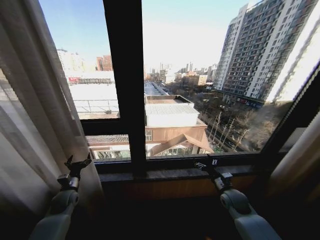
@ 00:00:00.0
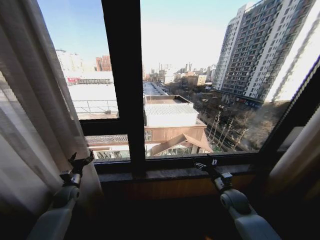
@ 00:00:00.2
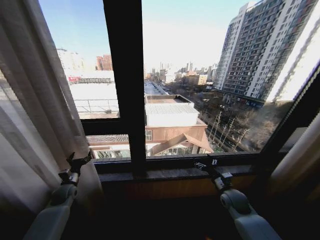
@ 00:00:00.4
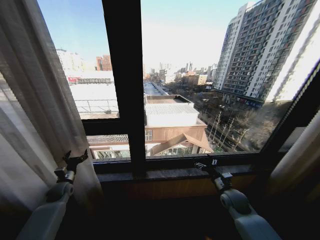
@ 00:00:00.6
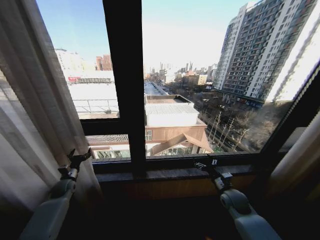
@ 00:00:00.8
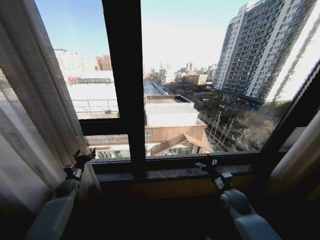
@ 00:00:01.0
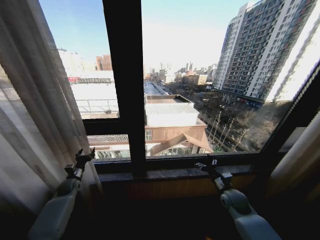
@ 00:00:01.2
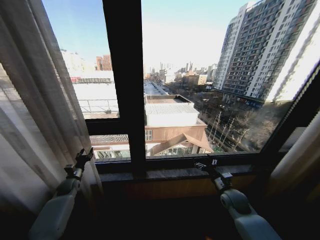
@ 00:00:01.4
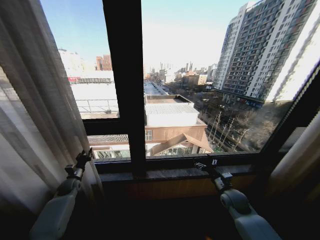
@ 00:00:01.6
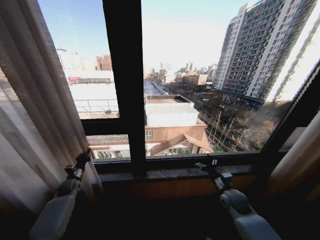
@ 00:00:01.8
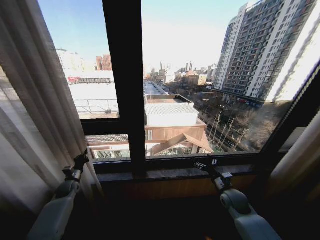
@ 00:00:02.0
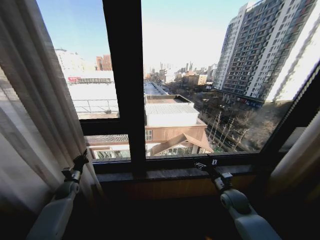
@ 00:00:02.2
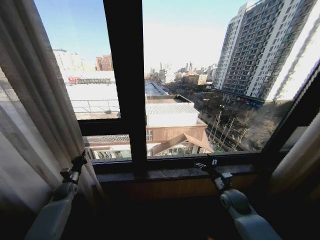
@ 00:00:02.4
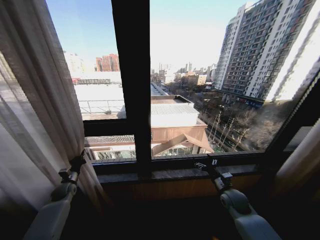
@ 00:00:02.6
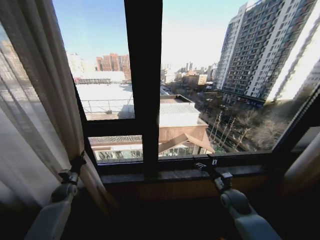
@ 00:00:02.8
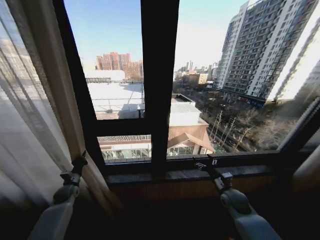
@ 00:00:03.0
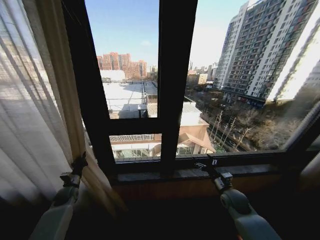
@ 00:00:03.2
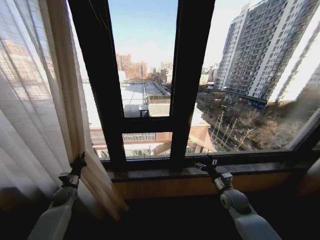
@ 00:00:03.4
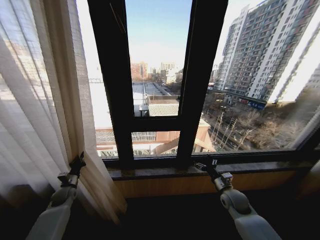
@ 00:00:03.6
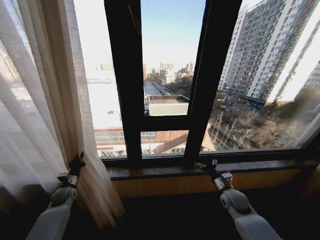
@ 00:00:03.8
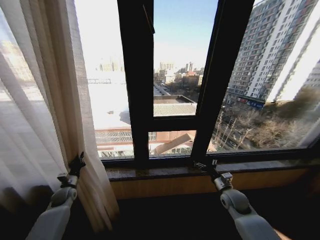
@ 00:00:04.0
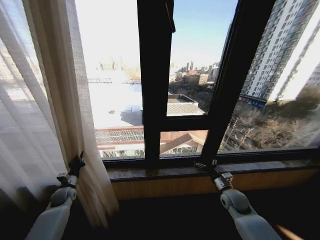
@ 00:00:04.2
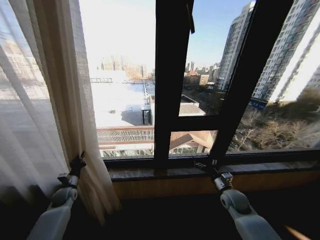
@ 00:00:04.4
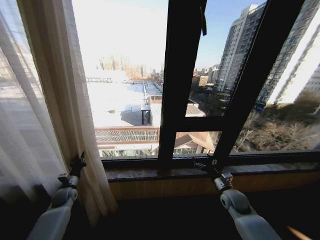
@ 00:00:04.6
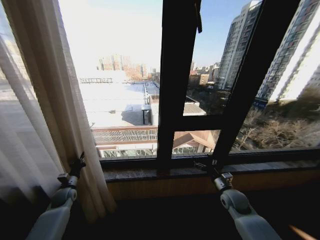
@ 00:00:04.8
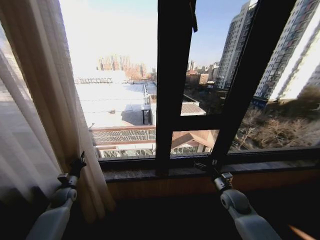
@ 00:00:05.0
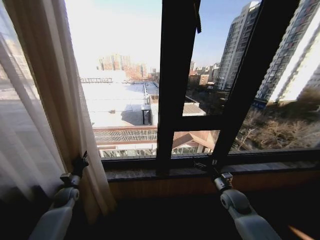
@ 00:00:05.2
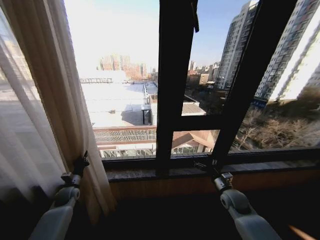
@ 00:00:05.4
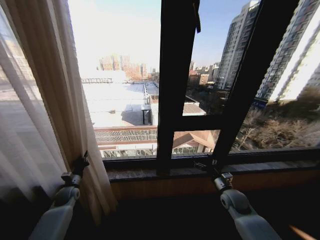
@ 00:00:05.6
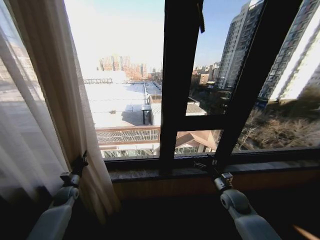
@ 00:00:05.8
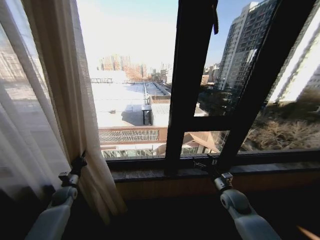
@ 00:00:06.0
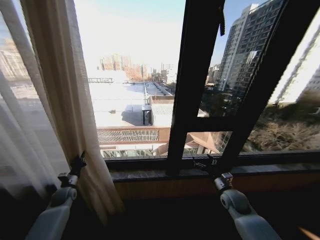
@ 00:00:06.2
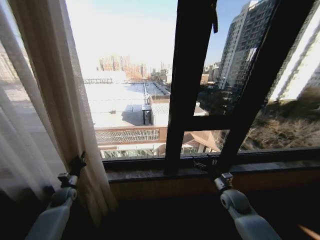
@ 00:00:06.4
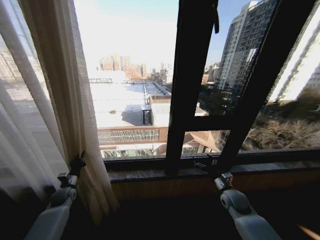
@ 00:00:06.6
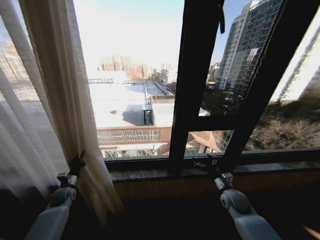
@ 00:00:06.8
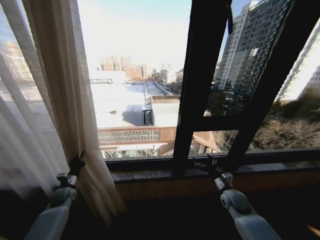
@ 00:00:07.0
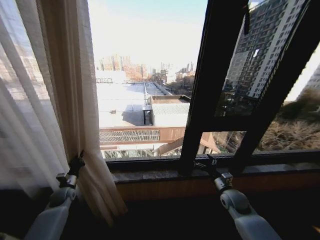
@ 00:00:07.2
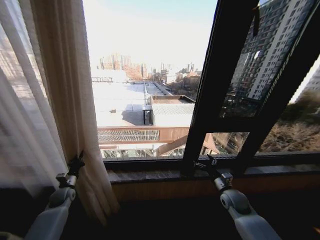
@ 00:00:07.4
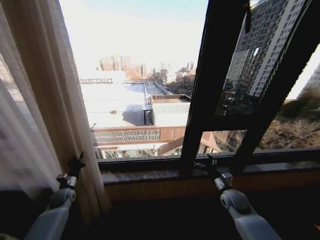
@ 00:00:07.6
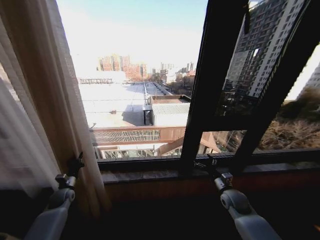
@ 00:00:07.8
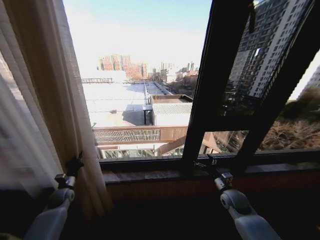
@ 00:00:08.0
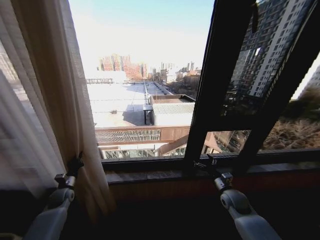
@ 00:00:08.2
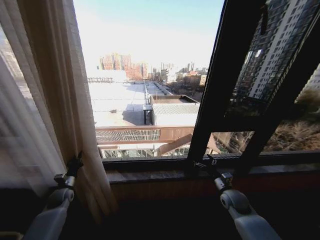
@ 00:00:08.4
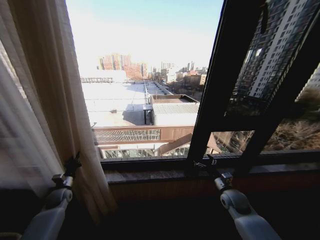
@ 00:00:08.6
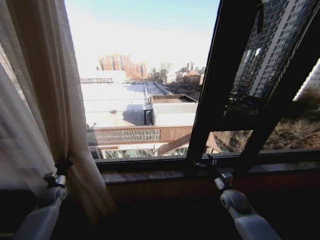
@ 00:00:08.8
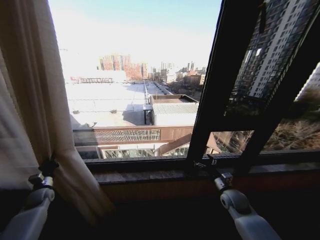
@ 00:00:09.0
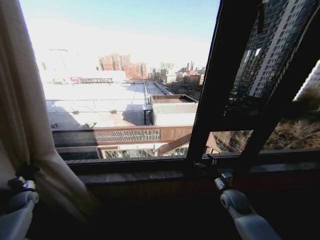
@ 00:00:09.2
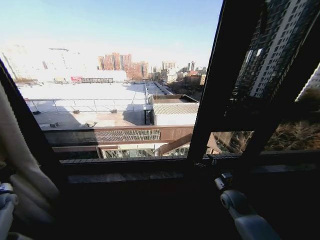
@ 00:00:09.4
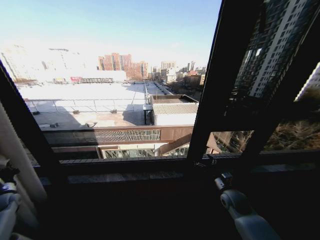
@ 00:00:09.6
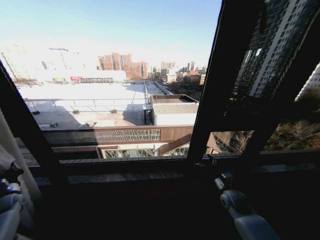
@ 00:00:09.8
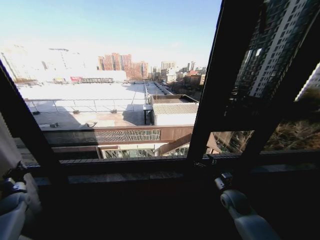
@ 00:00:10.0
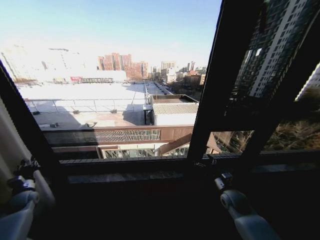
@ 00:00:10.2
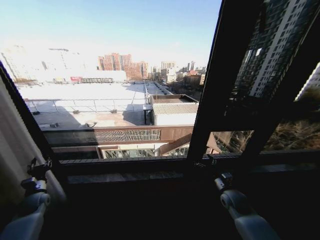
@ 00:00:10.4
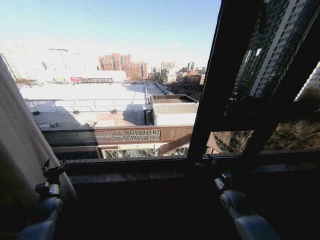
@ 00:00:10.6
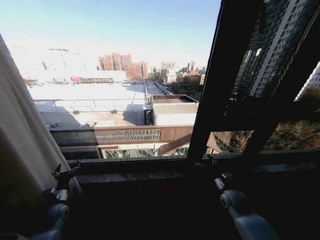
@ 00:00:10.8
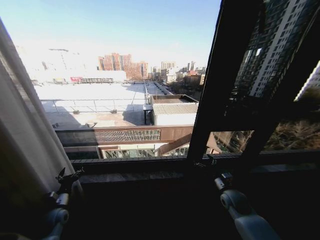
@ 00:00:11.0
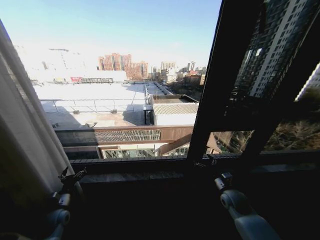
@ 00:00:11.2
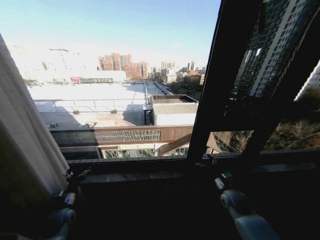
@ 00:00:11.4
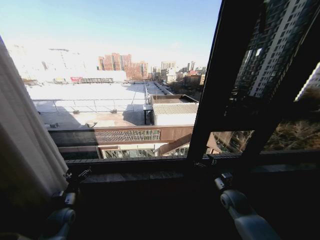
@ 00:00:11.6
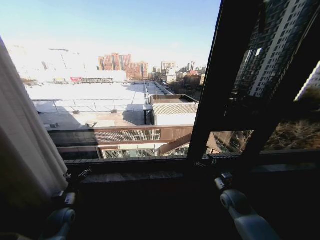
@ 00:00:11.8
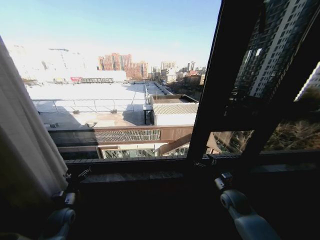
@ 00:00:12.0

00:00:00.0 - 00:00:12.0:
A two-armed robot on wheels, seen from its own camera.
Task of the whole recording: Open the curtains by pulling them apart, changing their state from closed to fully open.
00:00:00.0 - 00:00:01.6: The left gripper goes roughly 10 cm forward and to the left, and closes its fingers.
00:00:01.6 - 00:00:03.0: The left gripper closes.
00:00:07.6 - 00:00:09.0: The left gripper moves to the left, about 10 cm.
00:00:09.0 - 00:00:10.4: The left gripper travels to the left and back again, approximately 10 cm each way, and opens its fingers.
00:00:10.4 - 00:00:12.0: The left gripper travels to the right by some 15 cm, and opens.
